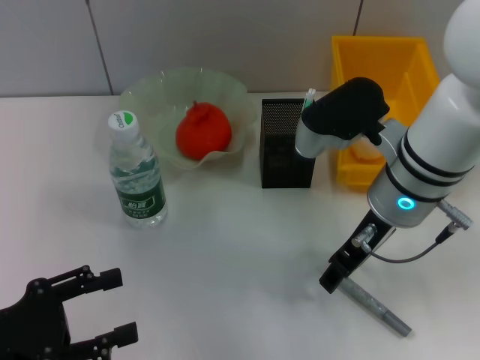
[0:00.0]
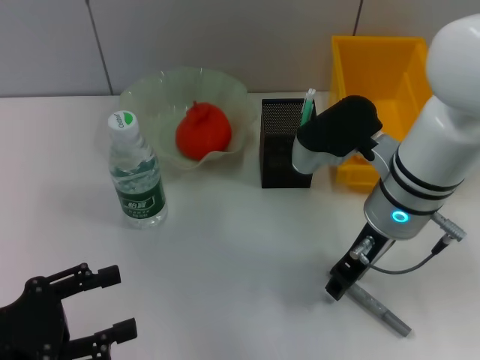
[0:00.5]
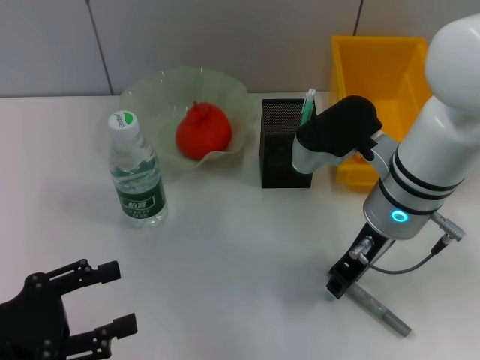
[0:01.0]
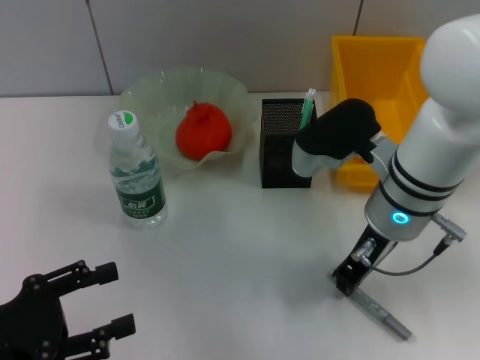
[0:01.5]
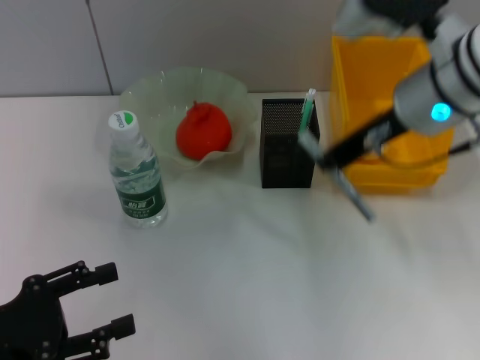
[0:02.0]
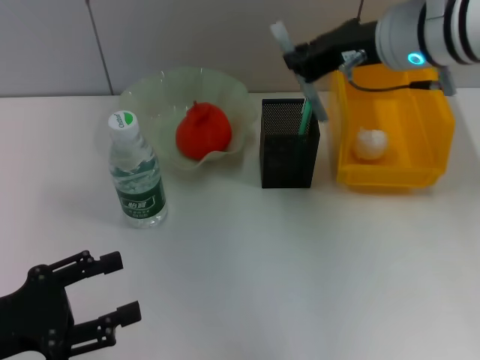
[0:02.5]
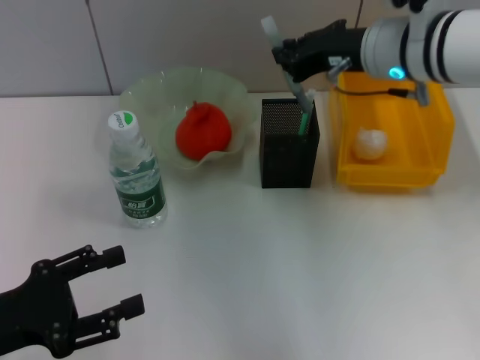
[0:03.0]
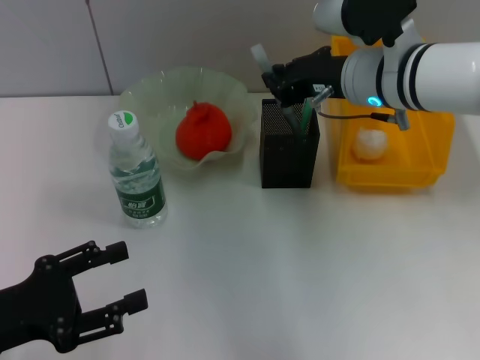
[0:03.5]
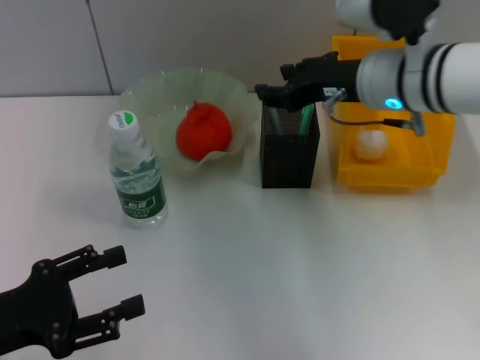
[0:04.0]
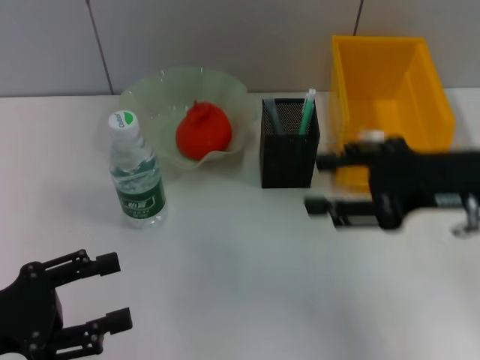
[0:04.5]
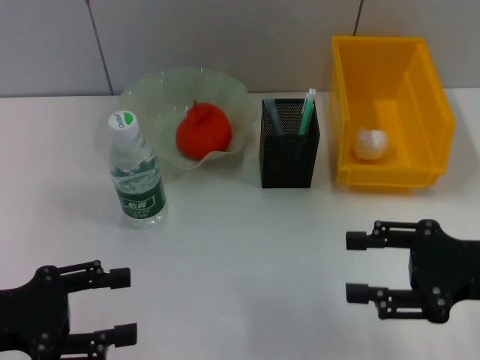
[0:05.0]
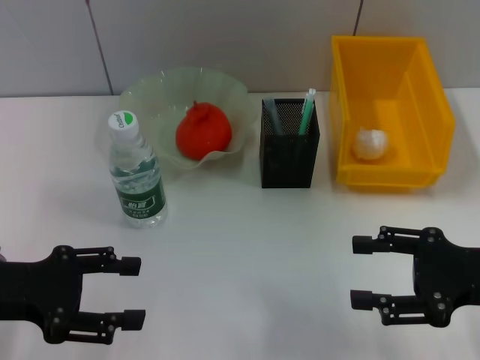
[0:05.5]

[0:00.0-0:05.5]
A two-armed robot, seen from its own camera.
Step, 0:01.5 to 0:03.5: Place the gray glue into the pen holder with the right hand.
0:00.0 to 0:02.0: The right gripper travels upward by some 10 cm, and closes.
0:02.0 to 0:03.5: The right gripper heads downward and forward, covering roughly 10 cm.
0:03.5 to 0:05.5: The left gripper moves forward, approximately 5 cm. Meanwhile the right gripper goes approximately 25 cm backward, to the right and downward, and opens up.

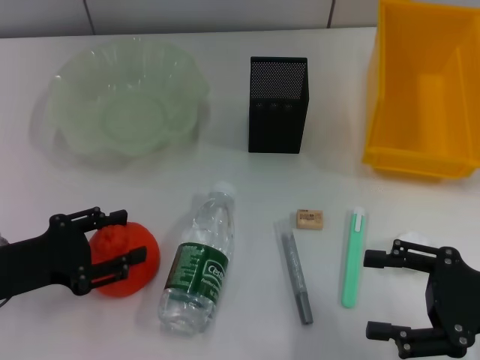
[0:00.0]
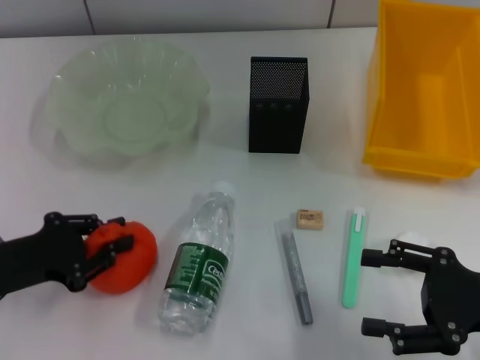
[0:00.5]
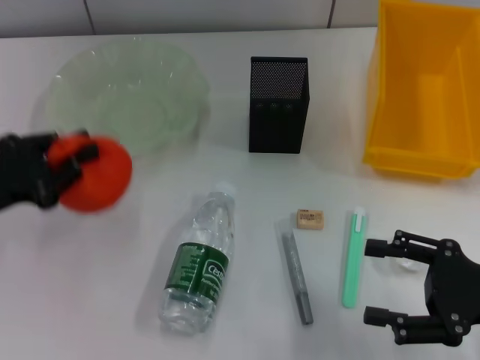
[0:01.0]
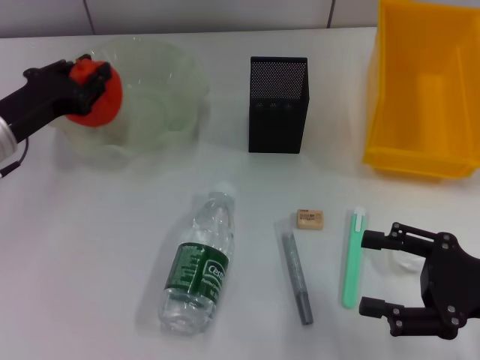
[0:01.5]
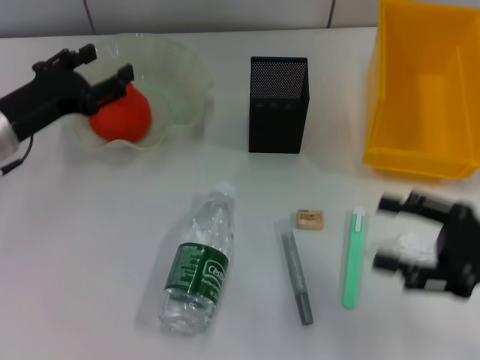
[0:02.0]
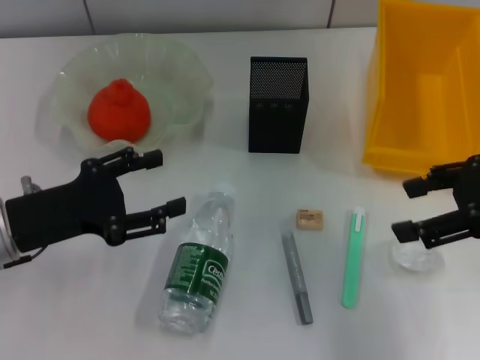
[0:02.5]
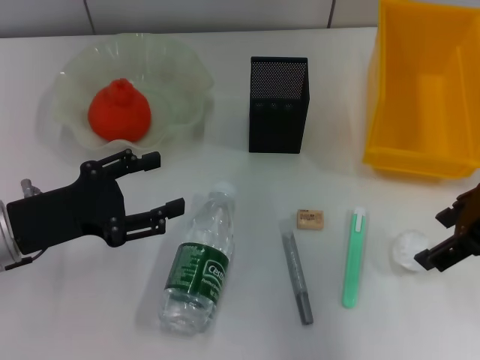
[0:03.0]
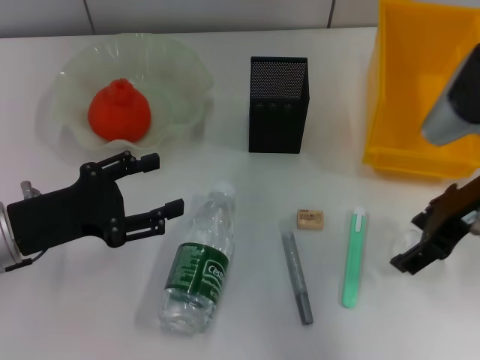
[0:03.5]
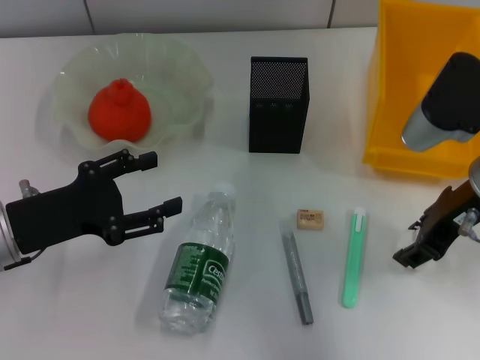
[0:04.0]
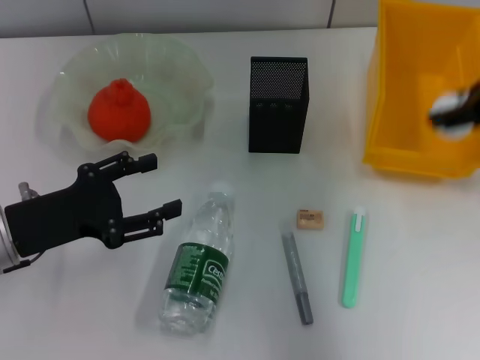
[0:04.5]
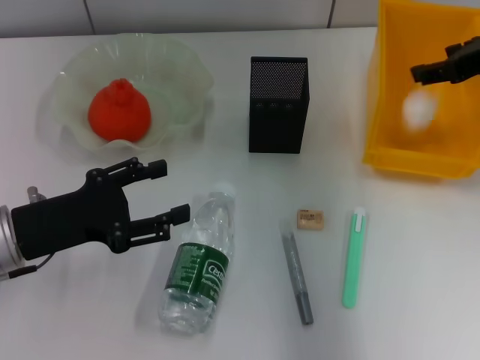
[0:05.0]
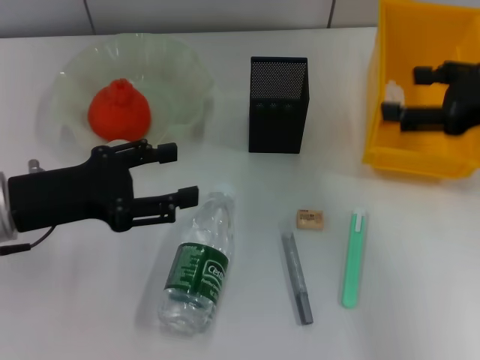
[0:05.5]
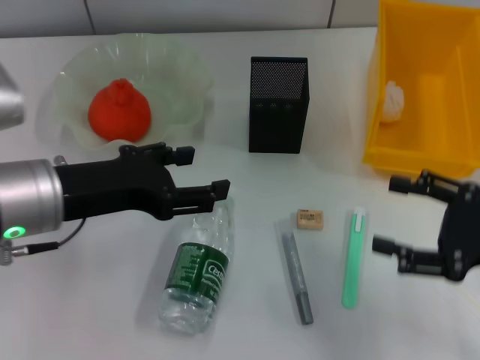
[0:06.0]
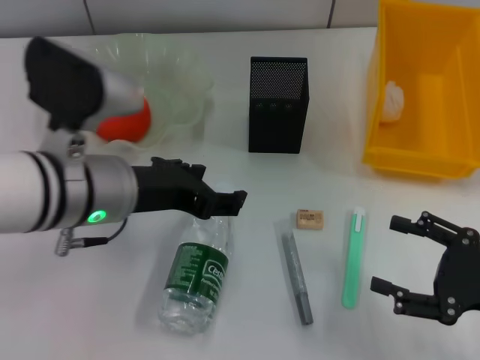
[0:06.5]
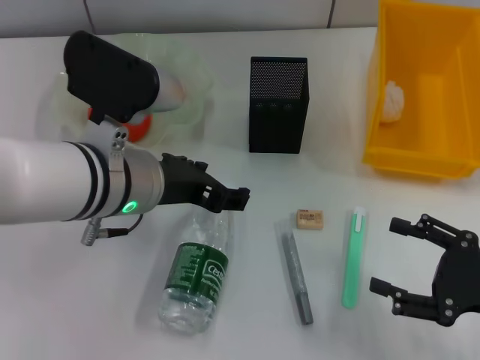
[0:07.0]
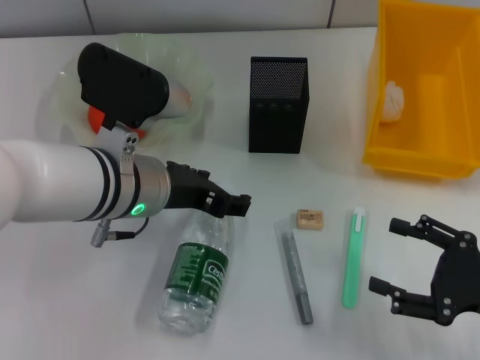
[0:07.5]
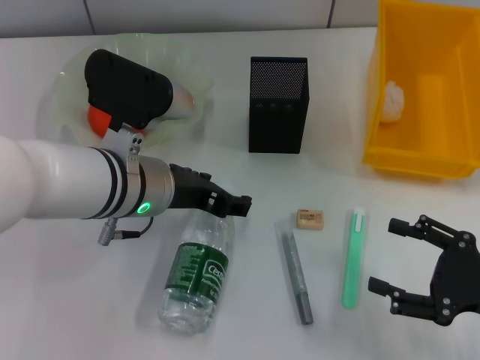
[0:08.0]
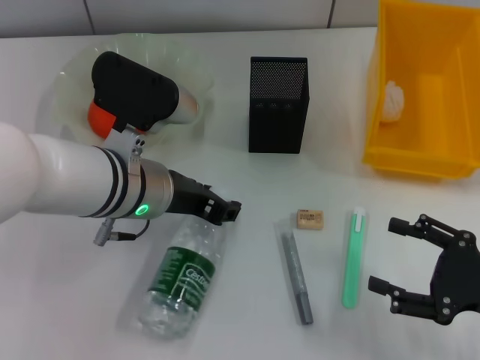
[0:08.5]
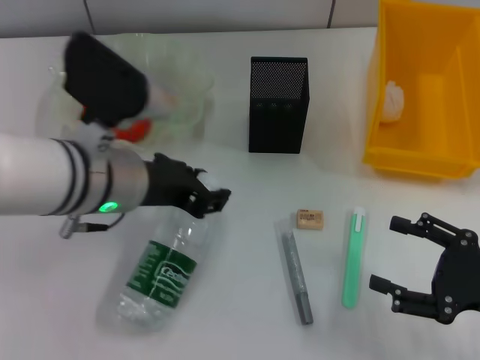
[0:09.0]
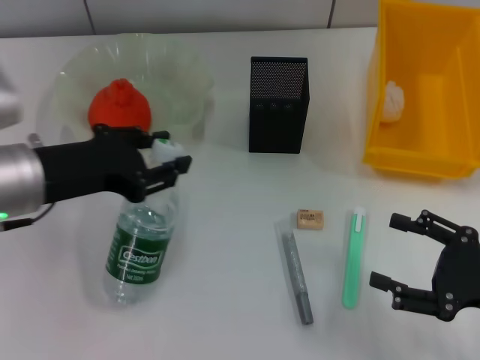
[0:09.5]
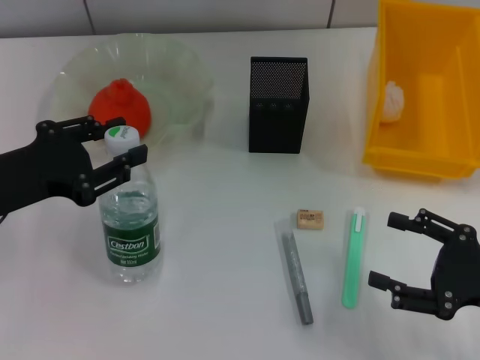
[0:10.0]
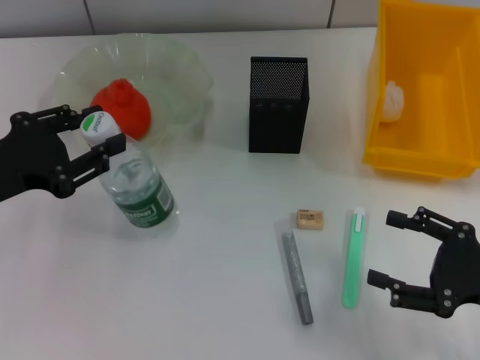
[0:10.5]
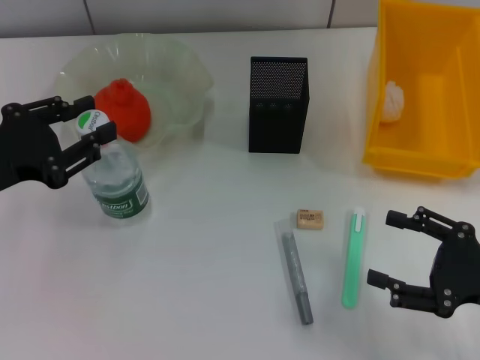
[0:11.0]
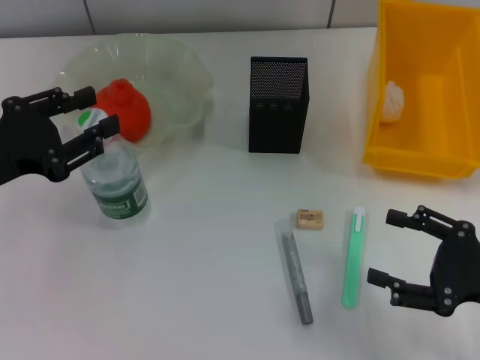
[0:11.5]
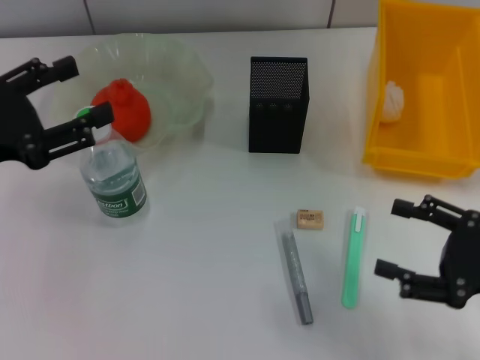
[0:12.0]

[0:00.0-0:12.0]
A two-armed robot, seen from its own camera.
Step, 0:00.0 to 0:00.5: Grab the orange with the left hand.
Step, 0:01.0 to 0:01.5: Place the orange into the fruit bowl with the left hand.
Step, 0:02.0 to 0:03.5: Grab the paper ball with the right hand.
Step, 0:04.5 to 0:05.0: Place the paper ball into the trash can with the right hand.
Step, 0:05.5 to 0:08.5: Grab the water bottle with the left hand.
Step, 0:09.0 to 0:11.5: Place the water bottle on the table with the left hand.
0:00.0 to 0:02.0: The left gripper moves forward, some 10 cm, and closes and opens again.
0:02.0 to 0:04.0: The right gripper moves forward, to the left and upward, about 15 cm. The left gripper goes some 10 cm backward.
0:04.0 to 0:06.0: The right gripper shifts approximately 15 cm backward, to the right and downward; the left gripper heads upward and to the right, covering about 10 cm.
0:06.0 to 0:08.0: The left gripper heads to the right, covering roughly 10 cm, while the right gripper travels downward by about 5 cm.
0:08.0 to 0:10.0: The left gripper shifts roughly 15 cm to the left, and closes its fingers.
0:10.0 to 0:12.0: The left gripper opens.

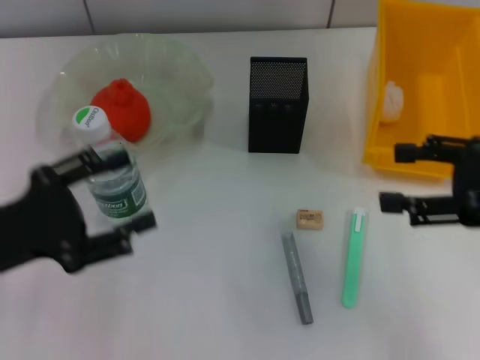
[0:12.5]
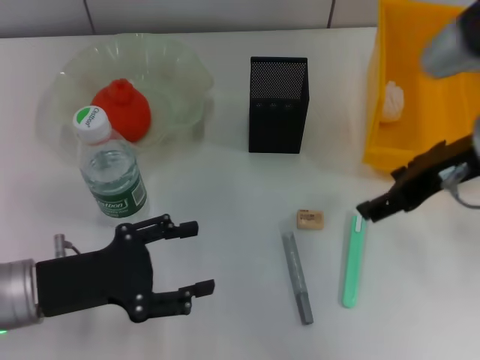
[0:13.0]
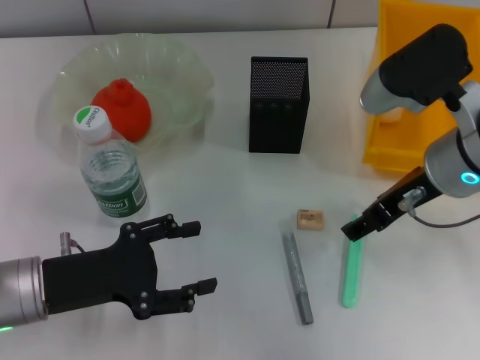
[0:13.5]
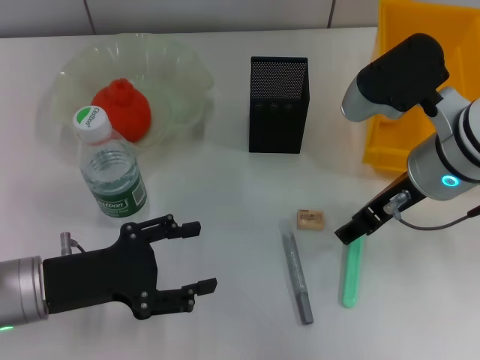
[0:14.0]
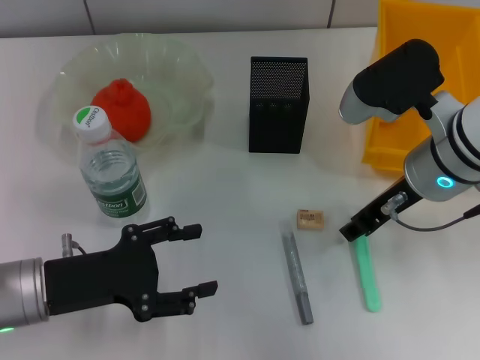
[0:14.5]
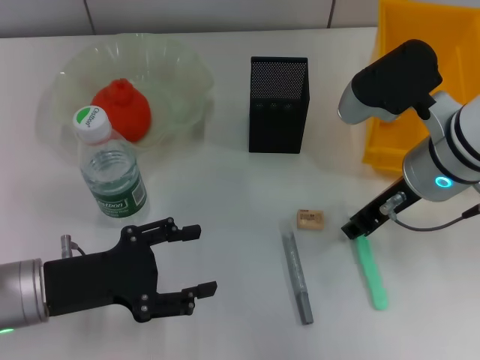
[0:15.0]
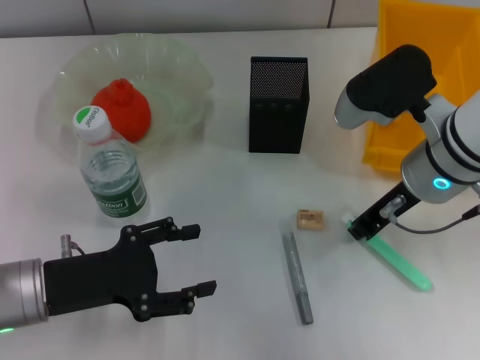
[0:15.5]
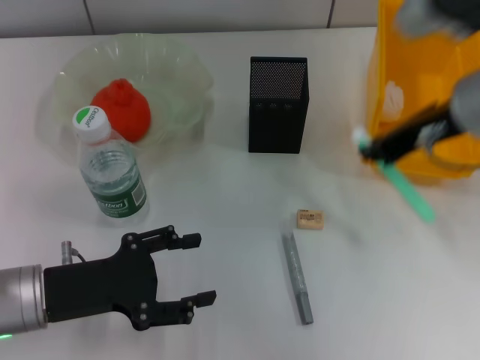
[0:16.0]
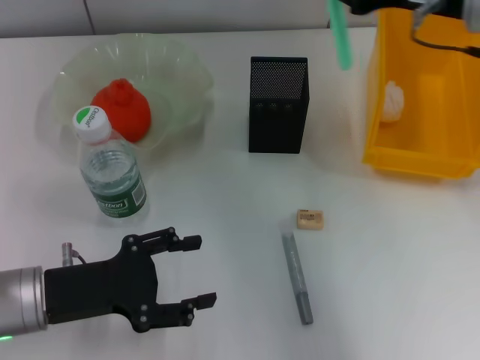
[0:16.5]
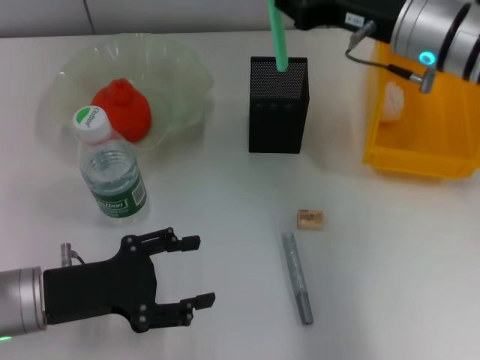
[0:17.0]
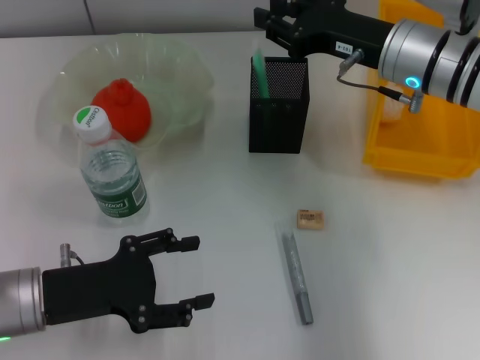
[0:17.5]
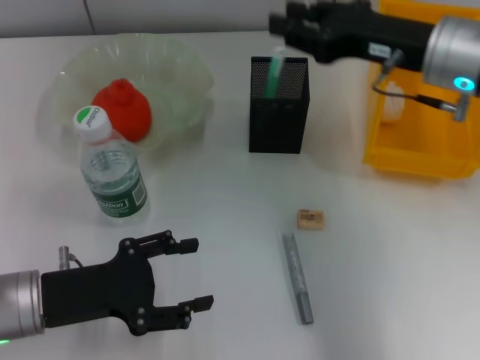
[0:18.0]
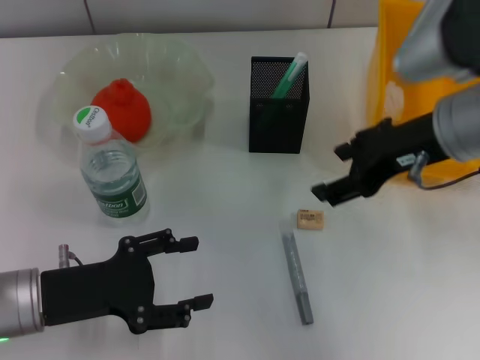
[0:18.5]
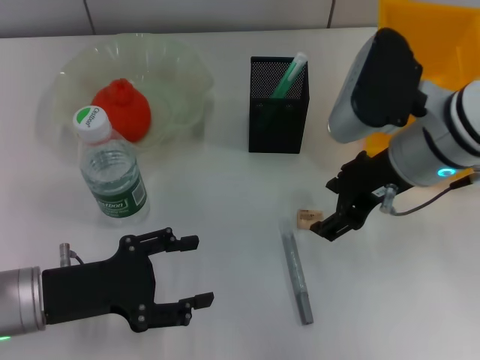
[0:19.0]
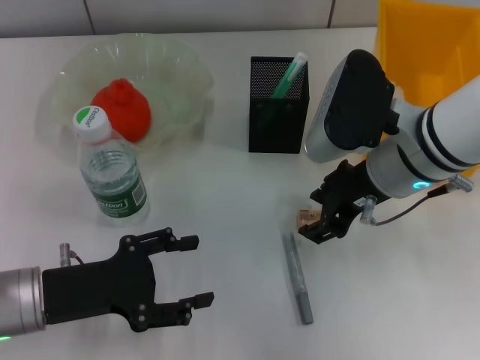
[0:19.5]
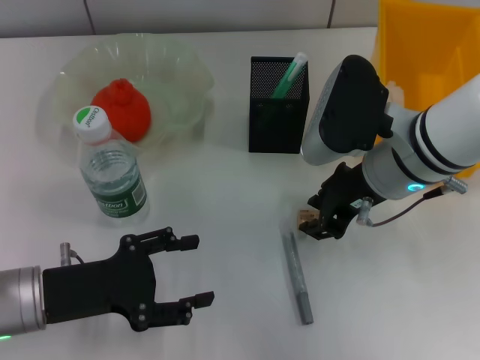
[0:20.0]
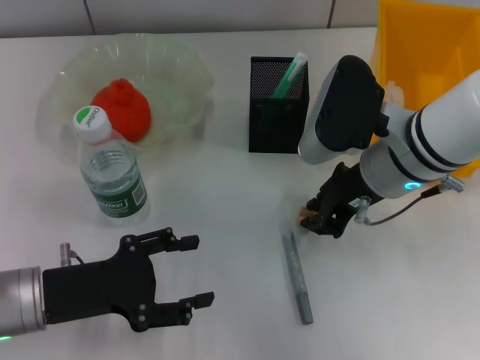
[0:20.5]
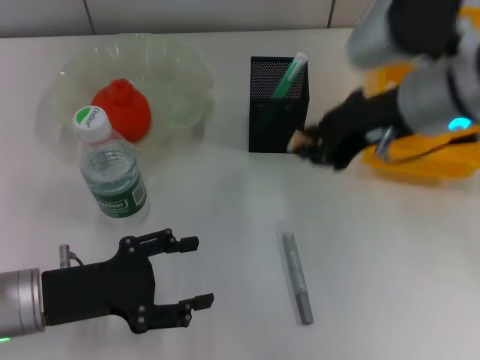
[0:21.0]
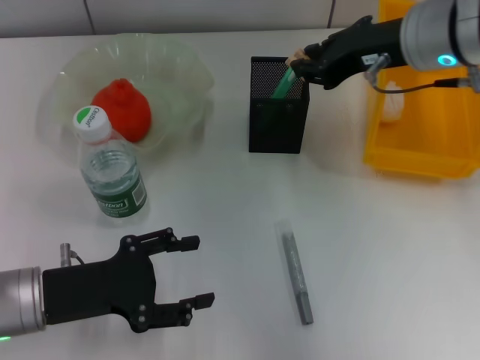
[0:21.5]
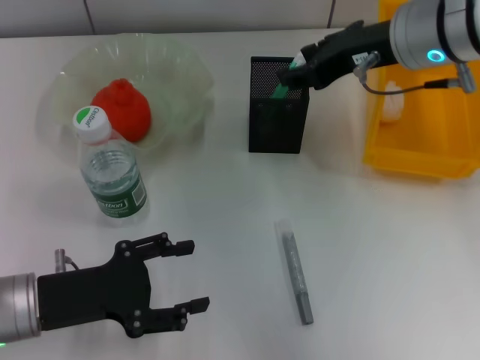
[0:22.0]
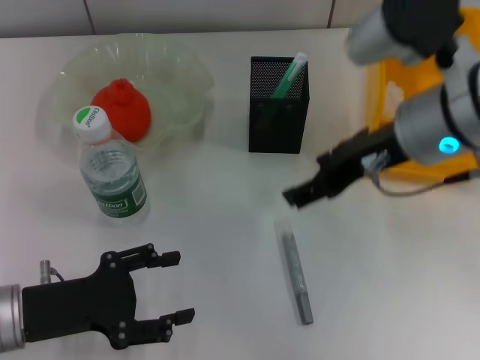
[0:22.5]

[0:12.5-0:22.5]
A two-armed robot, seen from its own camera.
Step, 0:12.5 to 0:15.0: Grab the blue utility knife with the right hand.
Step, 0:15.5 to 0:18.0: Place the blue utility knife into the pen holder with the right hand.
Step, 0:18.5 to 0:20.0: Grab the eraser with the right hand.
Step, 0:21.0 to 0:21.5: Put the eraser into the pen holder with the right hand.
0:12.5 to 0:14.5: The left gripper heads downward, covering roughly 5 cm. The right gripper moves to the left and forward, approximately 15 cm.
0:14.5 to 0:16.5: The right gripper shifts some 10 cm upward, and closes up.
0:16.5 to 0:18.5: The right gripper opens its fingers.
0:18.5 to 0:20.5: The right gripper is displaced downward by roughly 5 cm, and closes its fingers.
0:20.5 to 0:22.5: The right gripper moves upward, roughly 5 cm, and opens.
